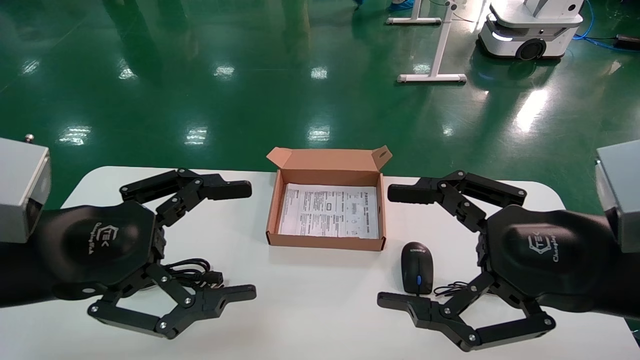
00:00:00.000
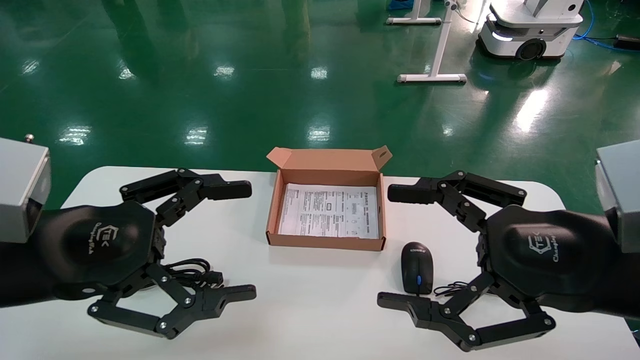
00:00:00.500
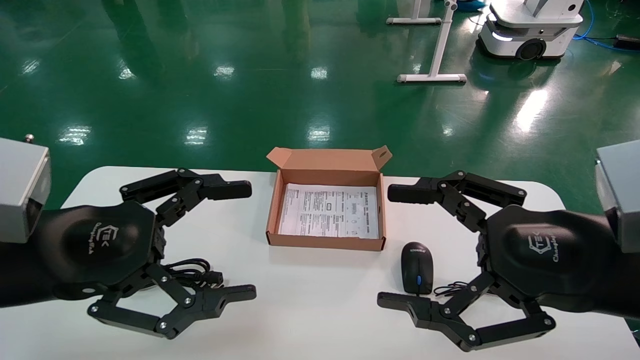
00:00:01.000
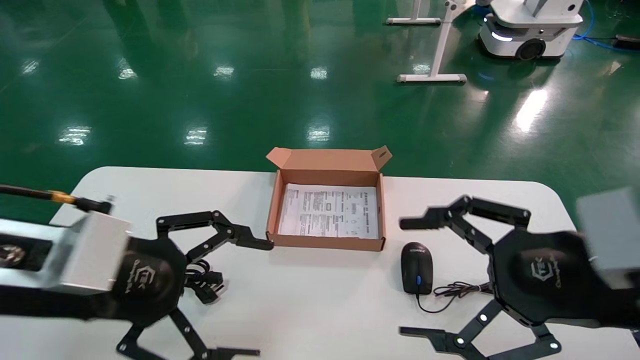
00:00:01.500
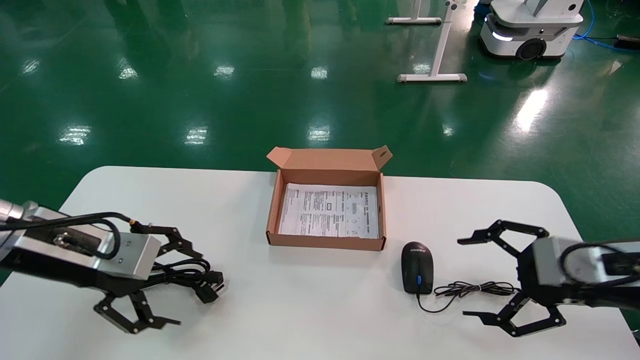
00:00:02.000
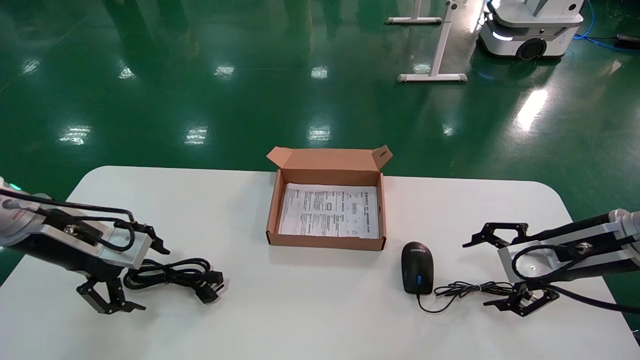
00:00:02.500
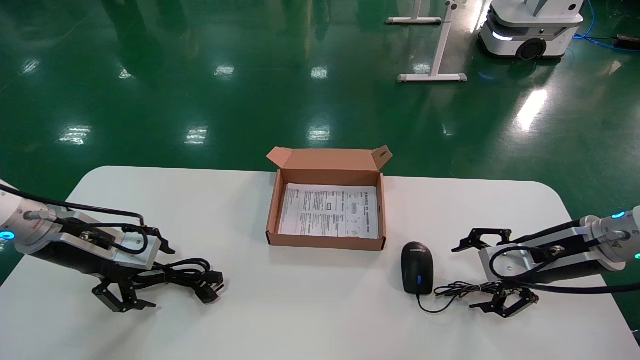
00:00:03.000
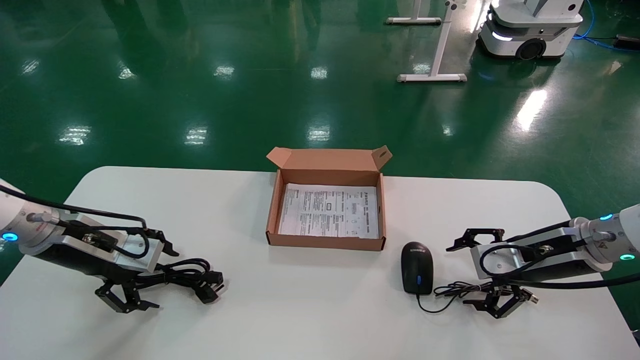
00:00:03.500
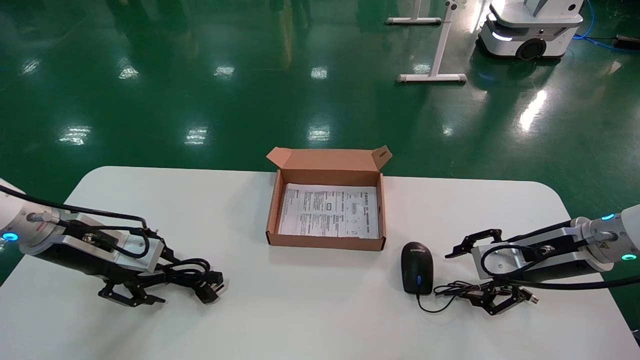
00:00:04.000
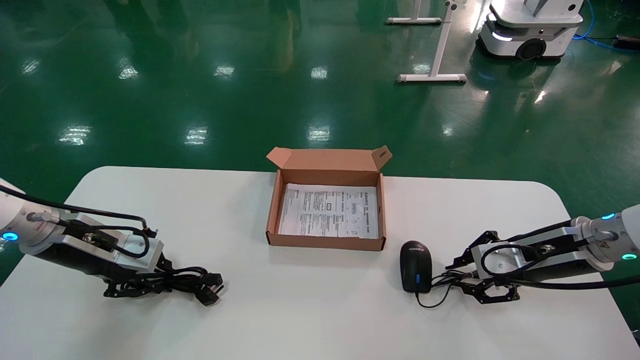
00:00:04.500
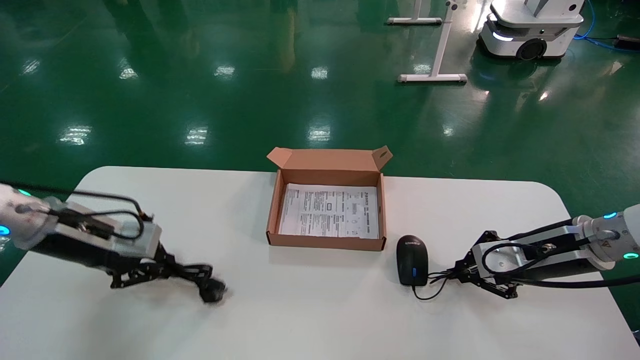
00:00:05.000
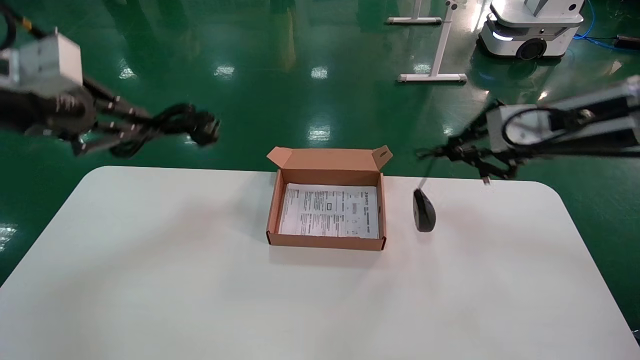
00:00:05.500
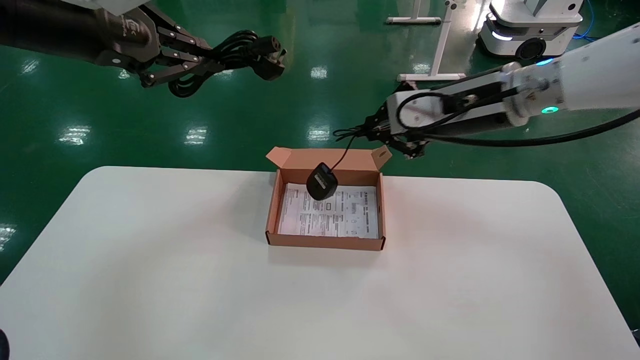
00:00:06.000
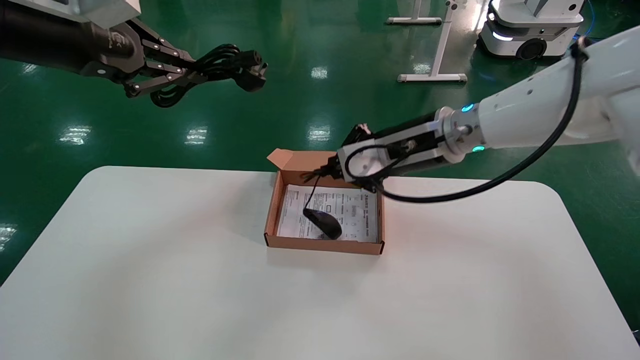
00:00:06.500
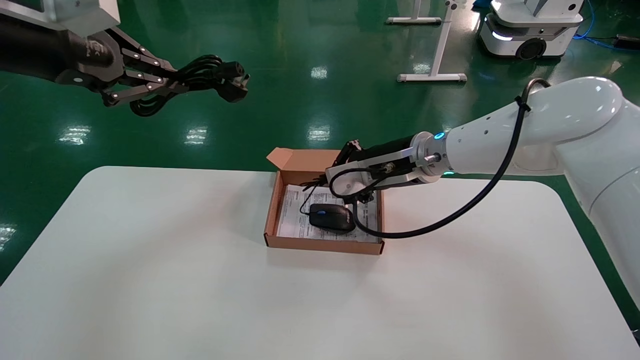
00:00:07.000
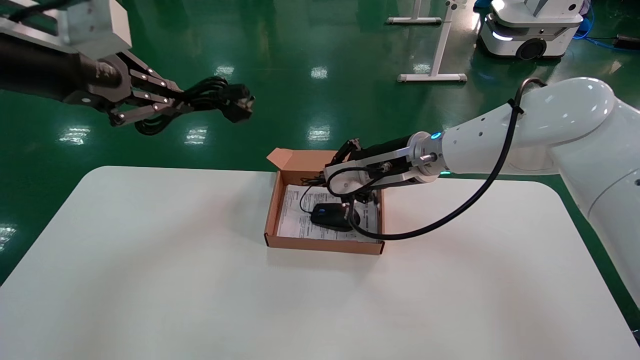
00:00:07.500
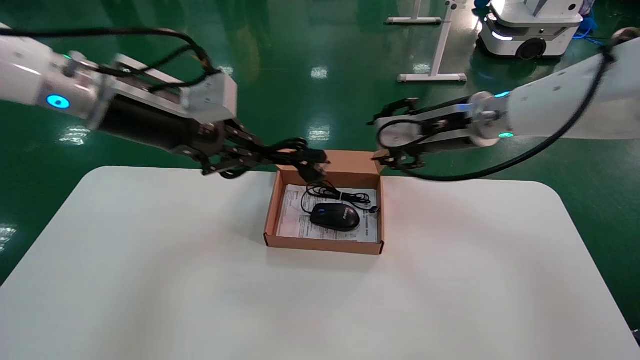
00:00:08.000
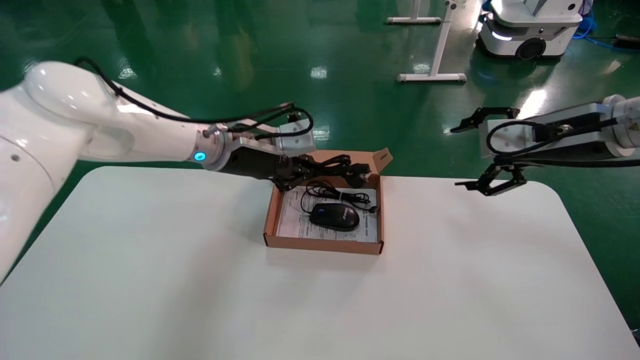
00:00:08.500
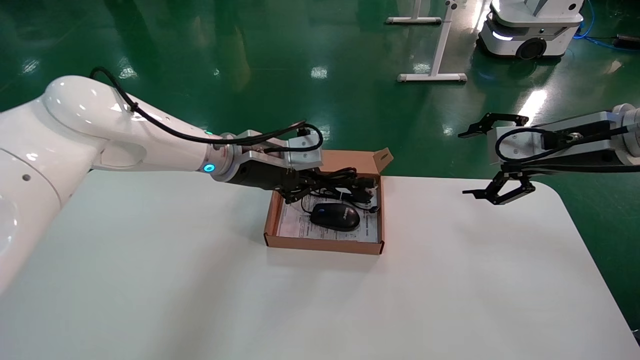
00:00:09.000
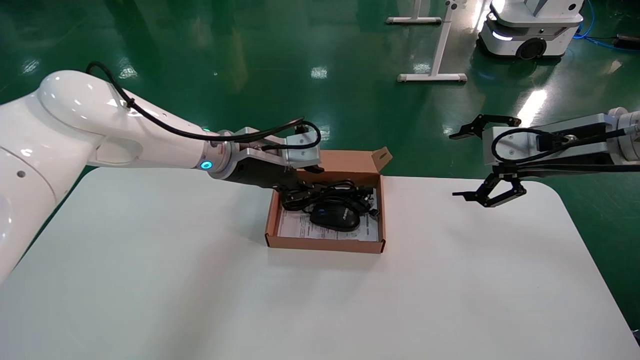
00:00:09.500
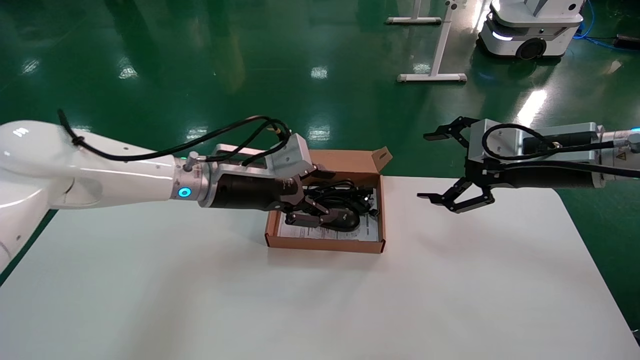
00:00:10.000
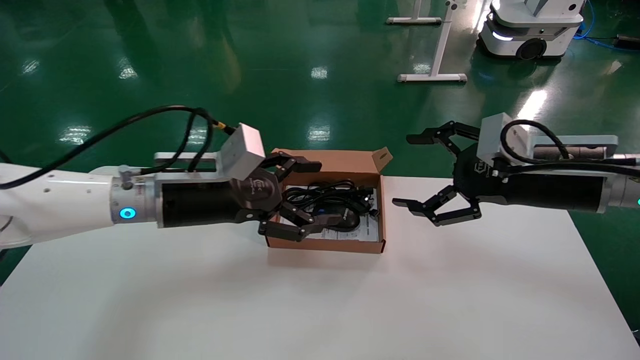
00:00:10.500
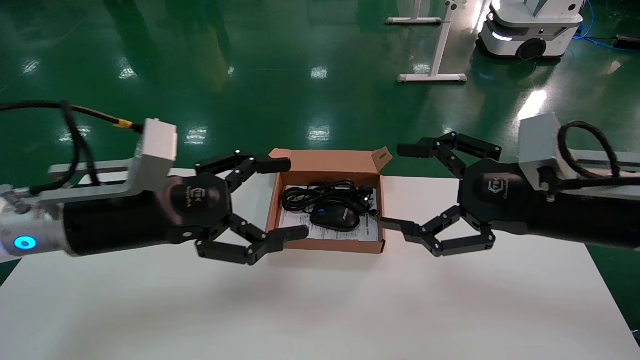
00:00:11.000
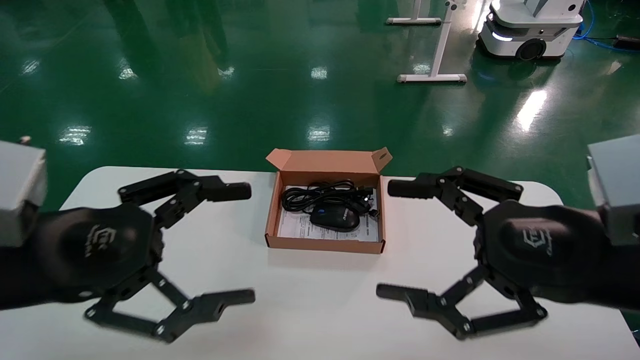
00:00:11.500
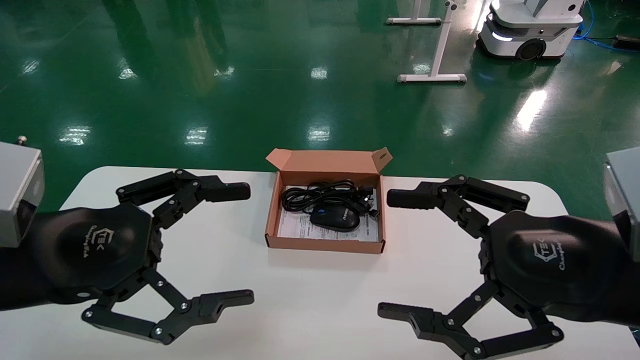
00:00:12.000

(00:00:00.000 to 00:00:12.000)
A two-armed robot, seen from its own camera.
Step, 00:00:02.000 - 00:00:04.500: Grab and lift both the mouse and power cord from the accessory packaging area at the same time.
Step, 00:00:05.000 - 00:00:09.500: Place the mouse and power cord into the box.
00:00:00.000 - 00:00:02.000: The right gripper heads forward, to the right and downward, covering approximately 15 cm; the left gripper travels forward by roughly 10 cm.
00:00:02.000 - 00:00:04.000: Both grippers travel together forward, about 10 cm.
00:00:04.000 - 00:00:06.000: The left gripper heads upward, covering some 25 cm, and closes its fingers, while the right gripper heads upward and to the left, covering roughly 25 cm, and closes its fingers.
00:00:06.000 - 00:00:08.000: The left gripper goes about 10 cm downward and to the right. The right gripper opens up.
00:00:08.000 - 00:00:10.000: The left gripper goes some 15 cm downward and to the right, and opens. Meanwhile the right gripper moves to the right and backward, about 10 cm, and opens its fingers.
00:00:10.000 - 00:00:12.000: The right gripper travels backward by about 20 cm, while the left gripper travels backward and to the left by some 25 cm, and opens up.

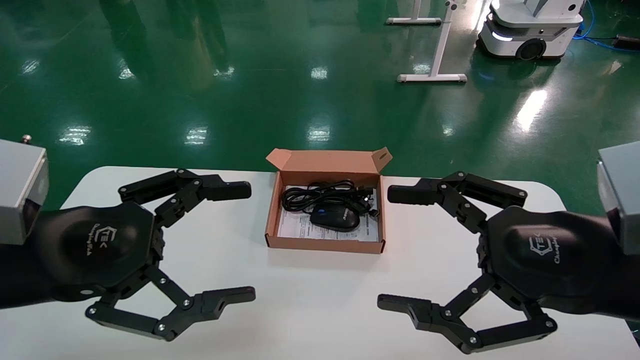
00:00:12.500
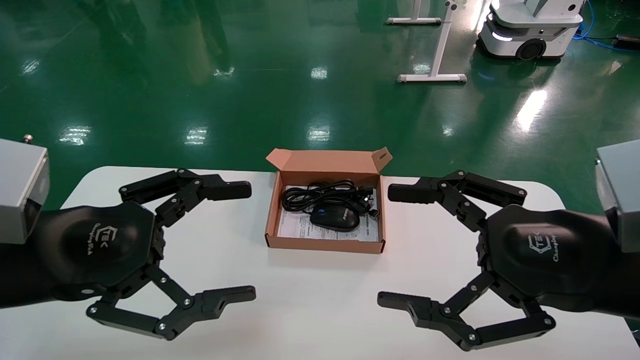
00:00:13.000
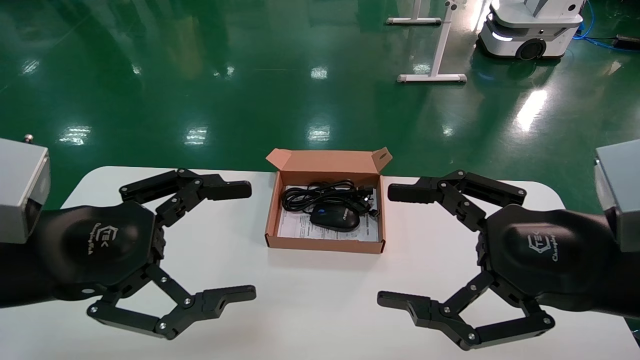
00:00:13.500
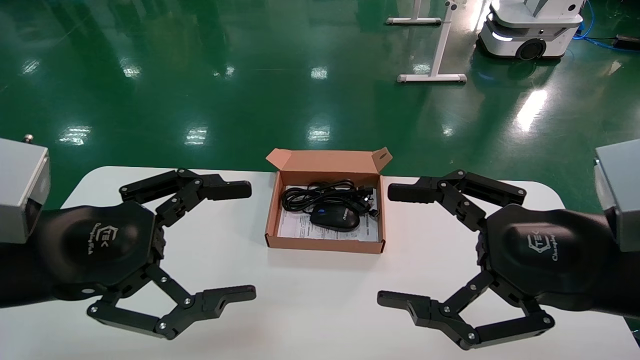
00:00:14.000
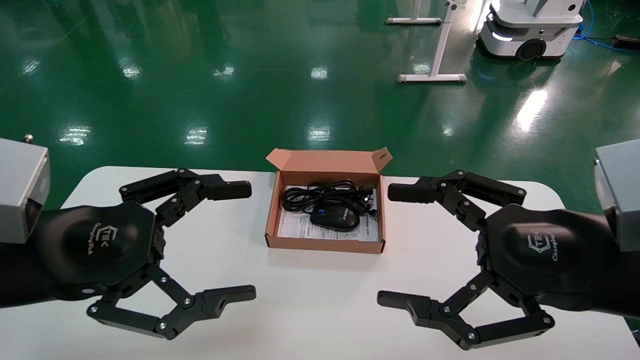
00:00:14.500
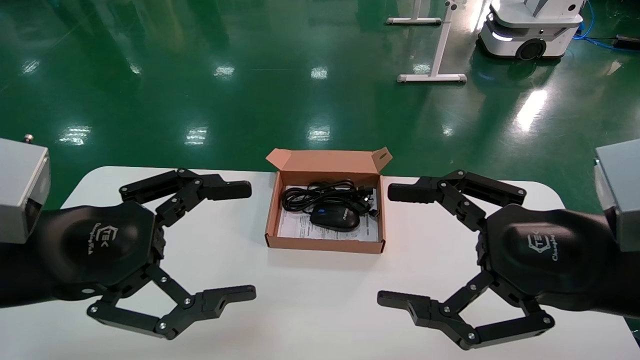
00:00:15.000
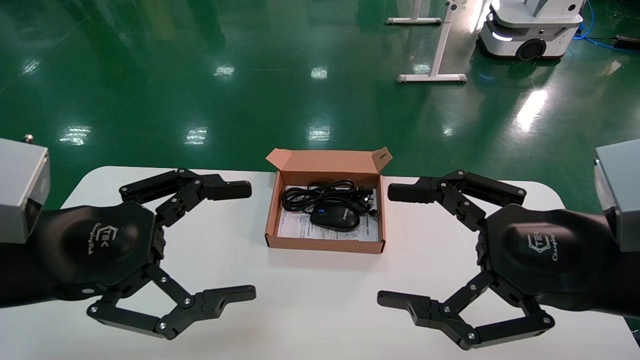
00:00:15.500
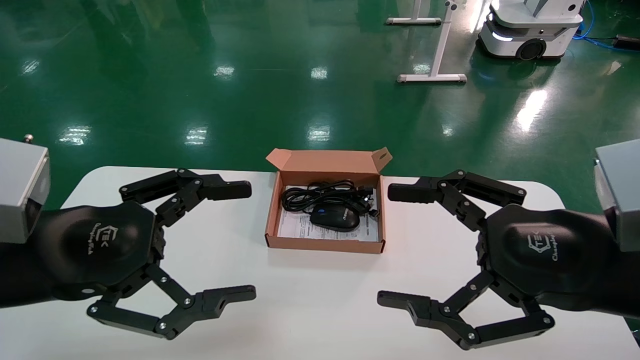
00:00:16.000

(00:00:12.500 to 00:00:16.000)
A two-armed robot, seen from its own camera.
00:00:12.500 - 00:00:16.000: Both grippers stay put.
